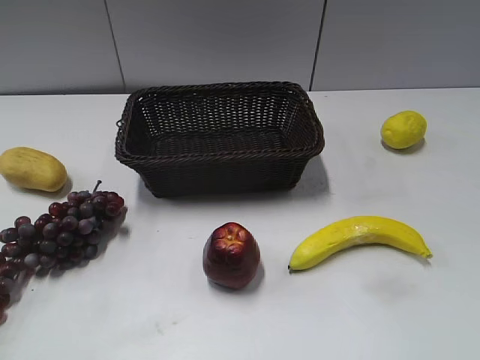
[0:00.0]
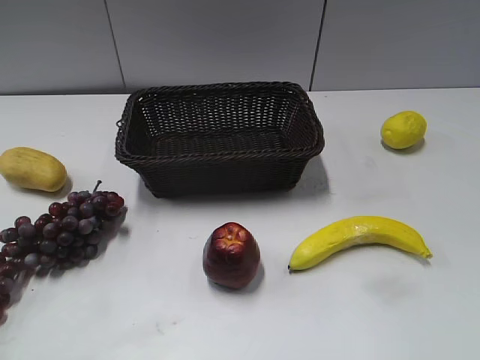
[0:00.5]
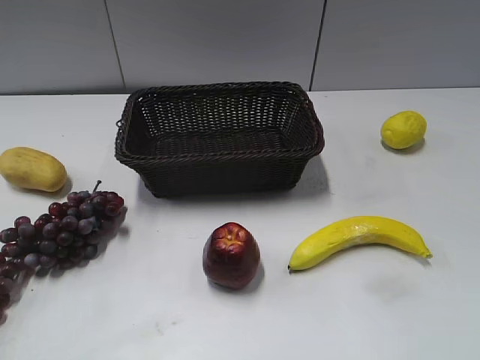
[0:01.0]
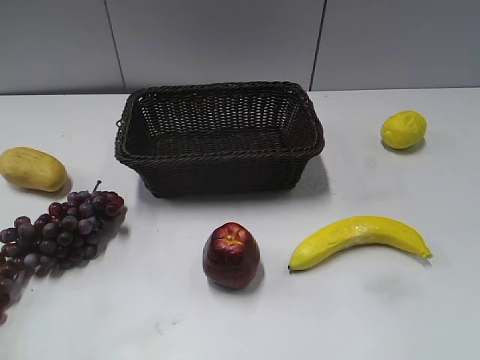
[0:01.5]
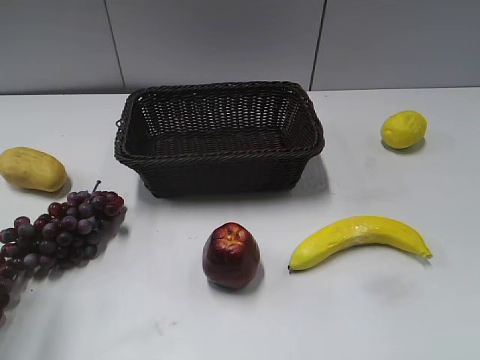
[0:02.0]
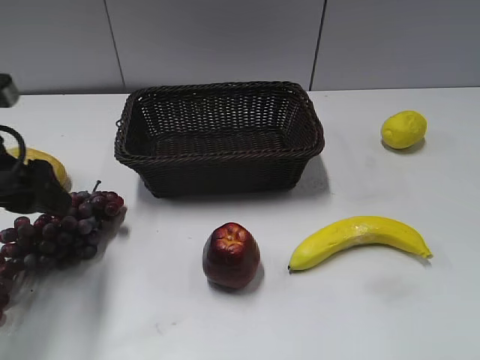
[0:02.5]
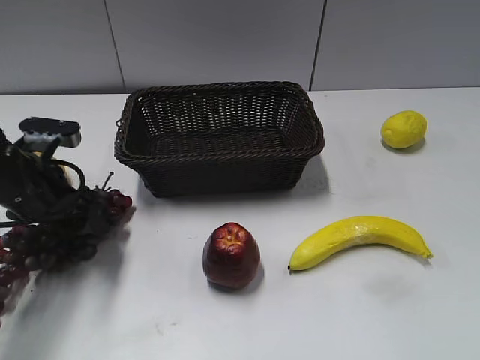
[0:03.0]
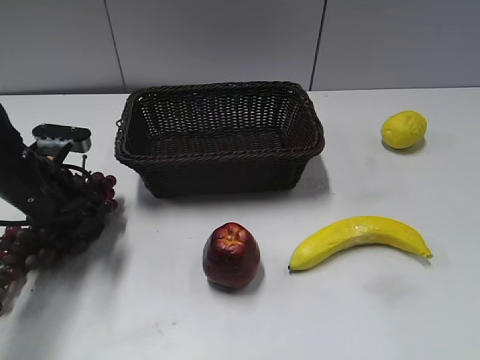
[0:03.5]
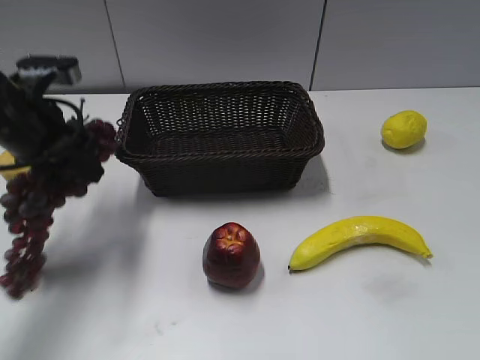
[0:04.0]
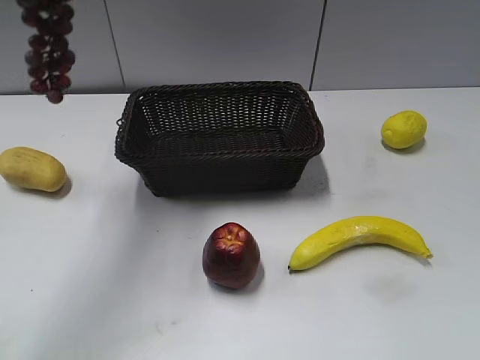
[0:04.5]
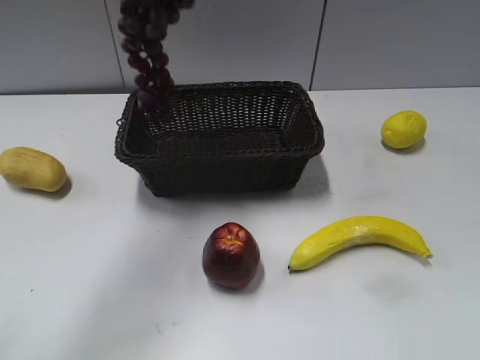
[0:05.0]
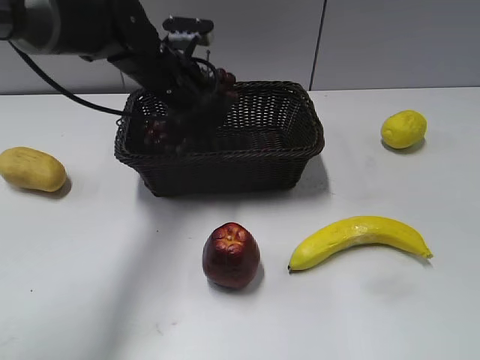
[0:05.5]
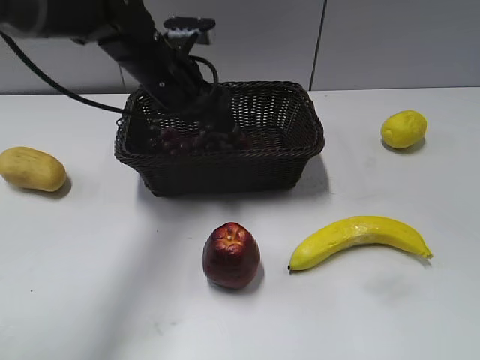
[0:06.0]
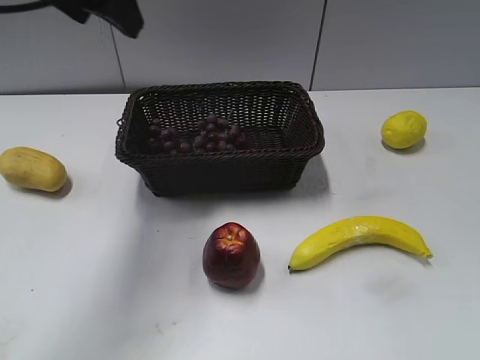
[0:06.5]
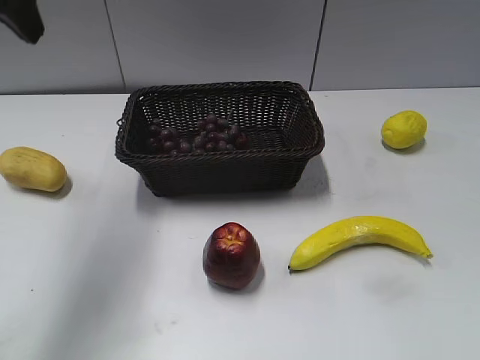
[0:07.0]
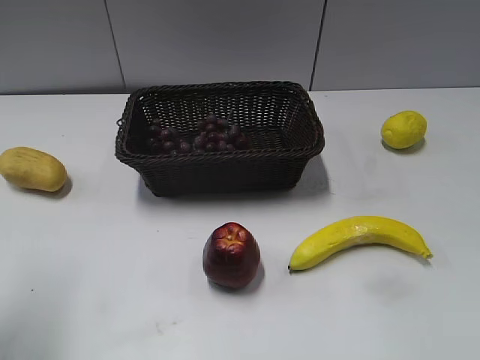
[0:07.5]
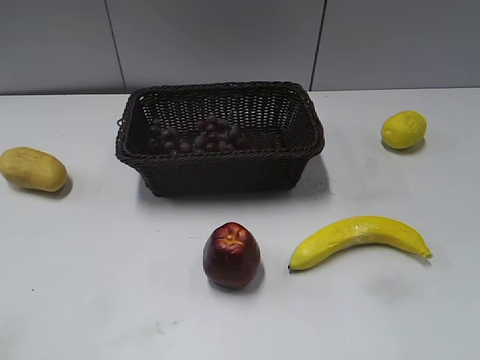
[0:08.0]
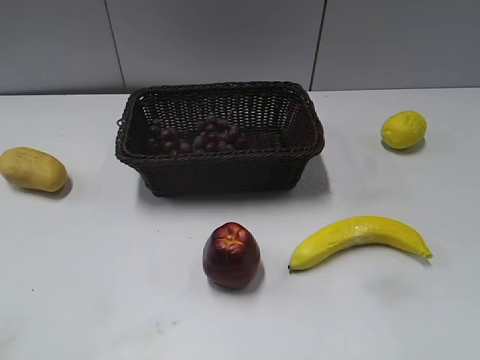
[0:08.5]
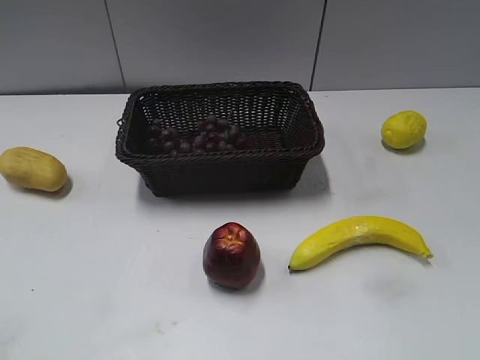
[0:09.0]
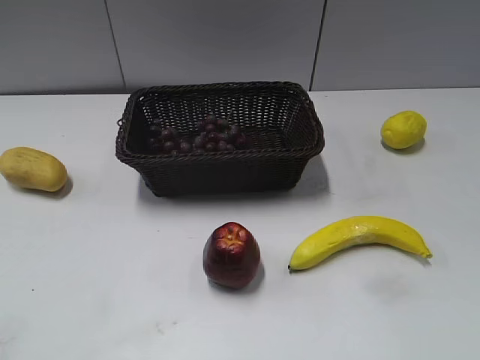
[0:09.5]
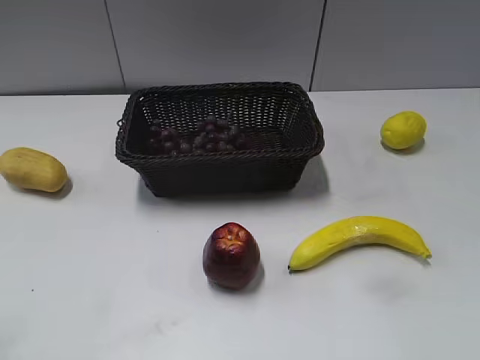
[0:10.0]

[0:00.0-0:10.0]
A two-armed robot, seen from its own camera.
Step, 0:02.5 to 0:03.0: Grasp the grape with left gripper.
Step, 0:04.0 to 0:05.5: Place the grape in the basket with left gripper.
0:02.0 to 0:04.0: The left gripper heads forward and to the right, covering about 15 cm, goes downward and returns, approximately 15 cm each way, and closes.
0:04.0 to 0:06.0: The left gripper moves up and down over about 25 cm, changing direction 2 times, and opens up.
0:06.0 to 0:08.0: The left gripper travels backward and to the left by about 40 cm.

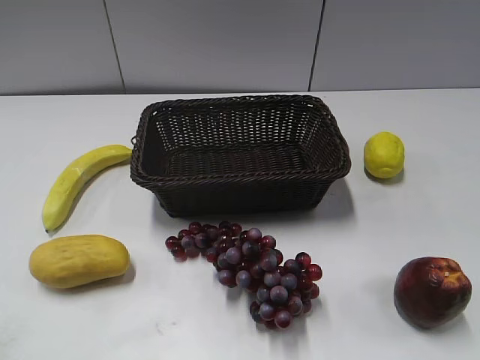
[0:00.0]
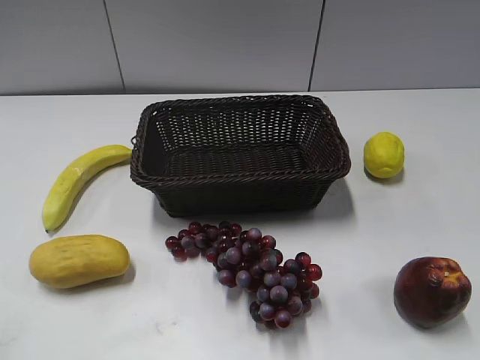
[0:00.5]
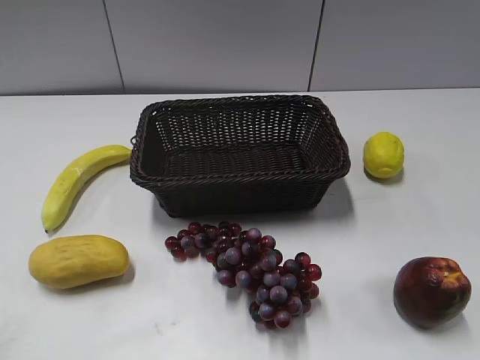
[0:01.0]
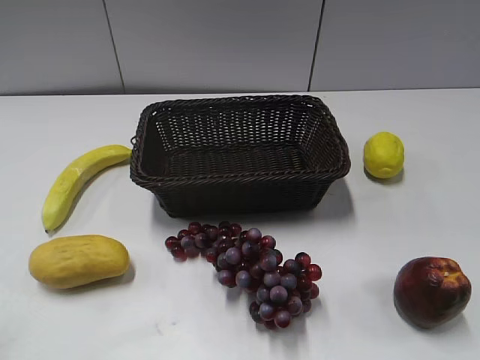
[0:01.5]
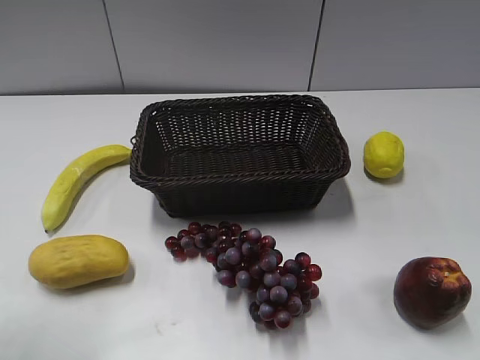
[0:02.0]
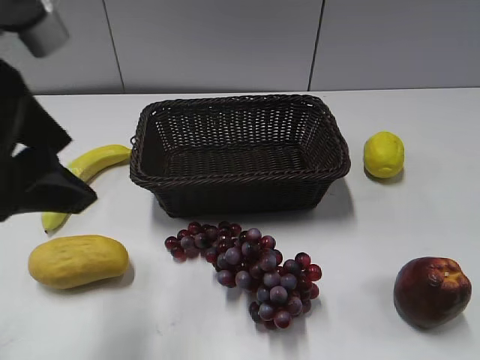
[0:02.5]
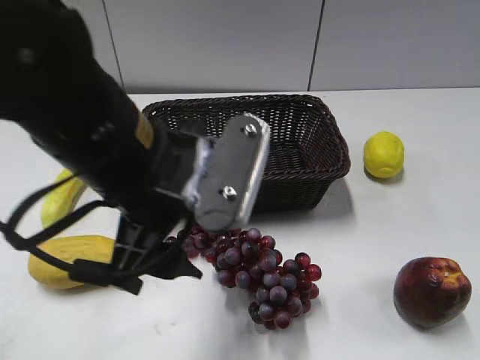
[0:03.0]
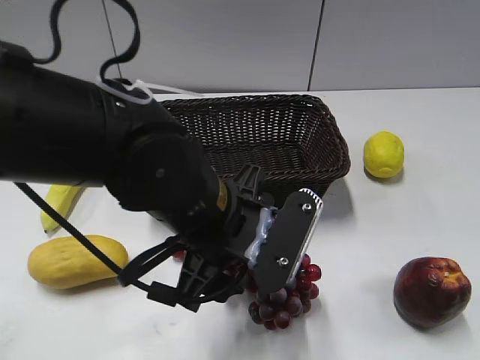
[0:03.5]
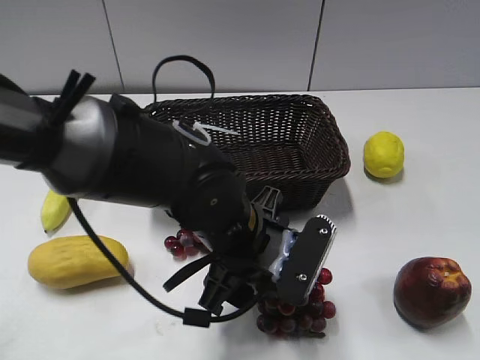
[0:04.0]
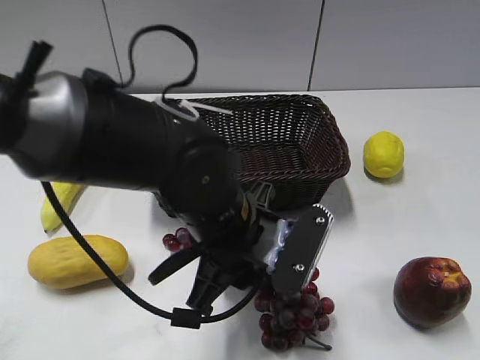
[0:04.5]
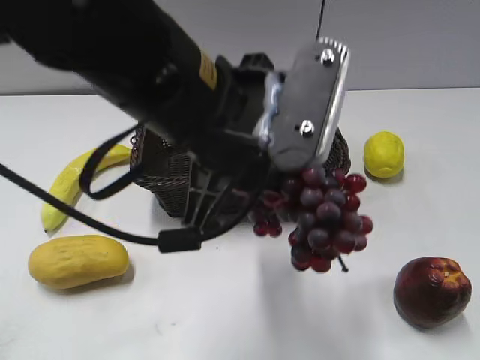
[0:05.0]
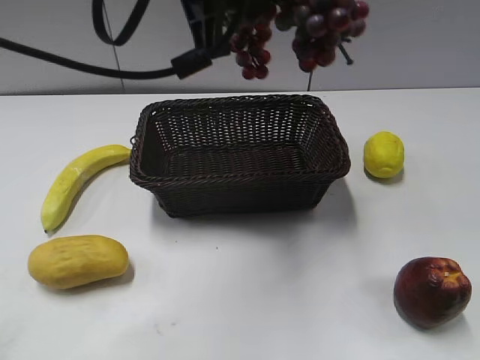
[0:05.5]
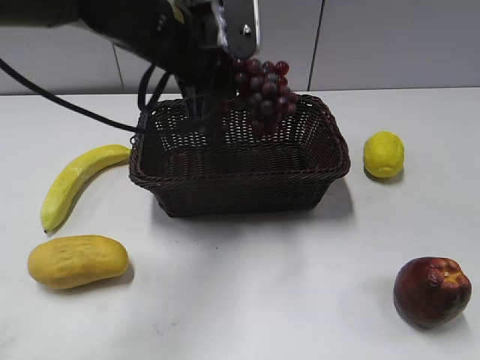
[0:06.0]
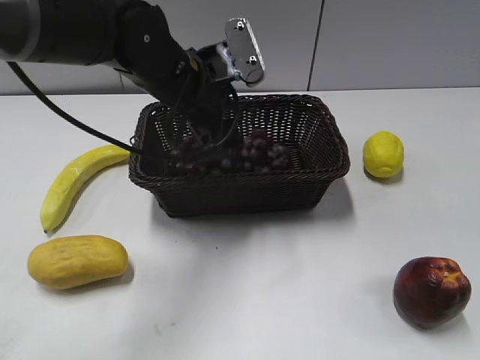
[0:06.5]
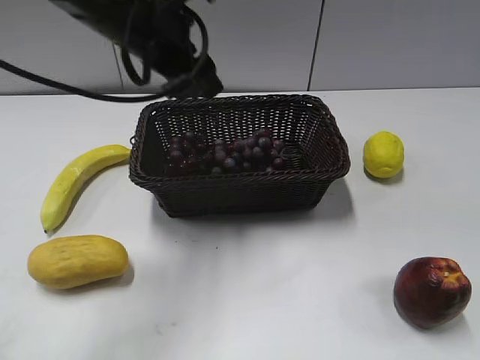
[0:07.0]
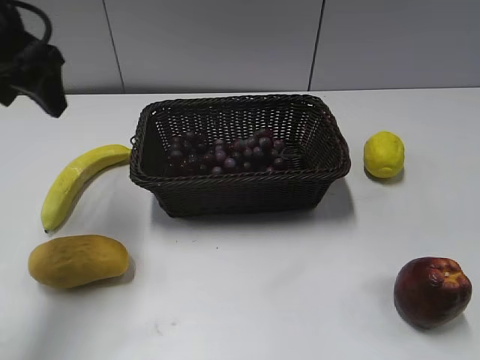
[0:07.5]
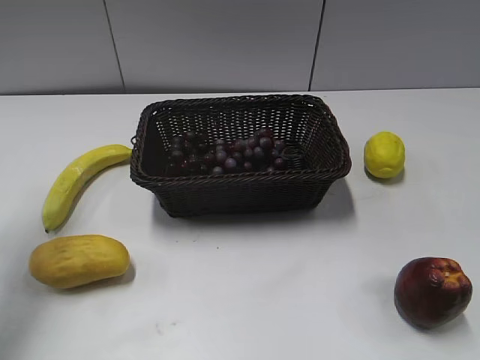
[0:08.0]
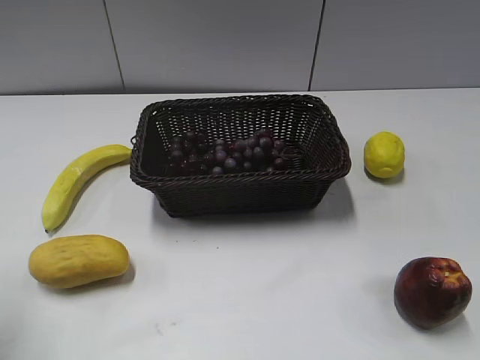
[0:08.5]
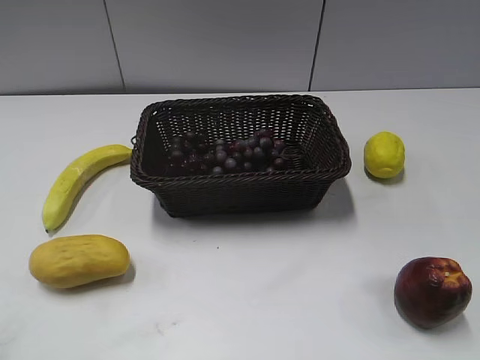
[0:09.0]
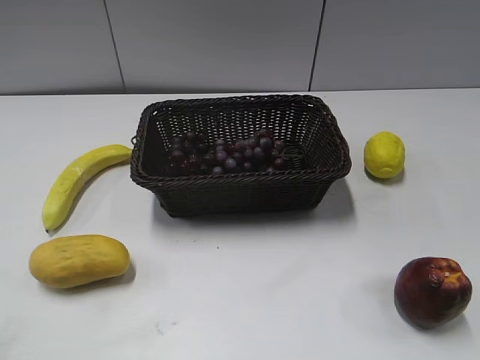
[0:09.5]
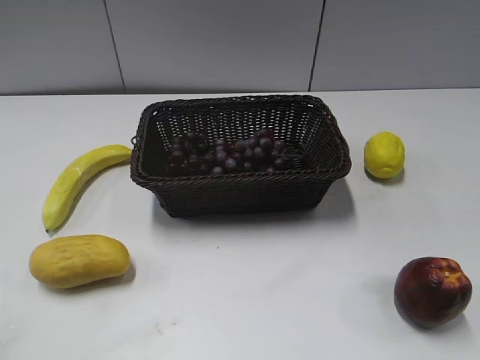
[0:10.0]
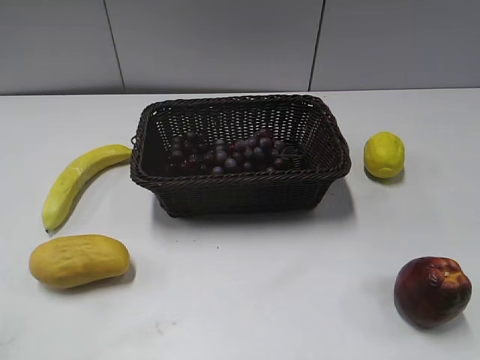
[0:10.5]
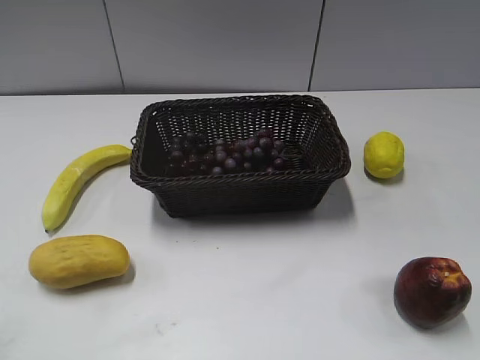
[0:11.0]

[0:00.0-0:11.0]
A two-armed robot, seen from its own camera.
Step, 0:02.5 to 0:04.0: Grasp the grape with left gripper.
Step, 0:04.5 to 0:06.5: Place the grape in the basket with left gripper.
0:02.0 to 0:03.5: The left gripper shifts about 25 cm to the right and downward.
0:03.5 to 0:05.5: The left gripper heads upward and forward, covering about 20 cm, and closes its fingers.
0:05.5 to 0:07.5: The left gripper goes about 20 cm to the left, and opens its fingers.
0:07.5 to 0:09.0: The left gripper goes some 25 cm backward.

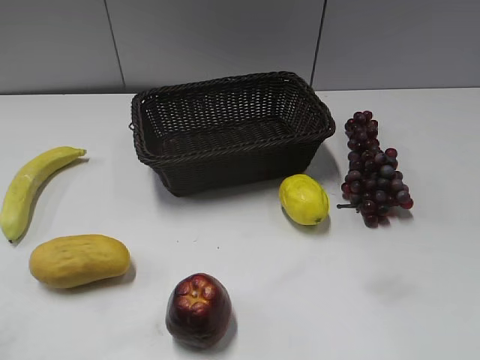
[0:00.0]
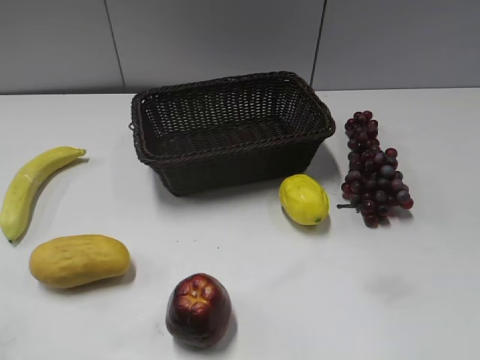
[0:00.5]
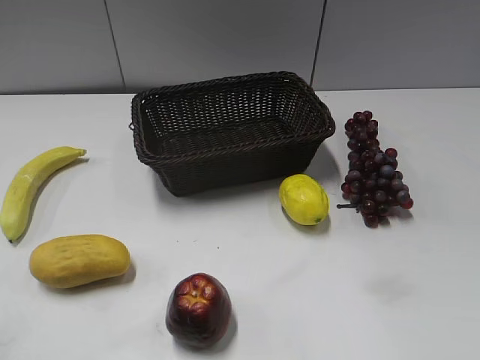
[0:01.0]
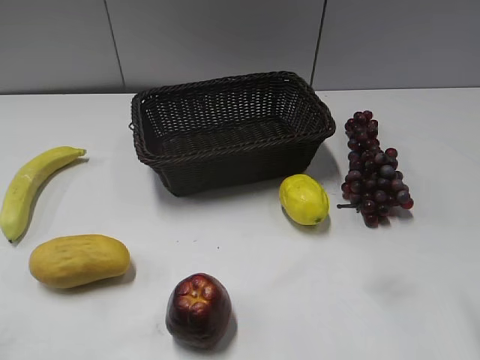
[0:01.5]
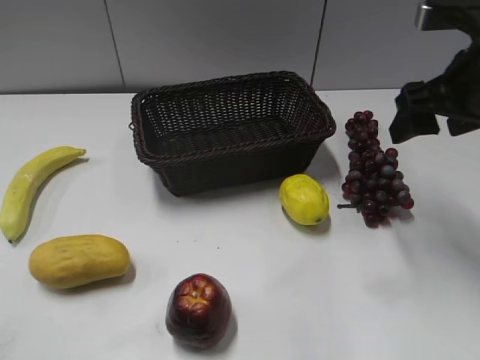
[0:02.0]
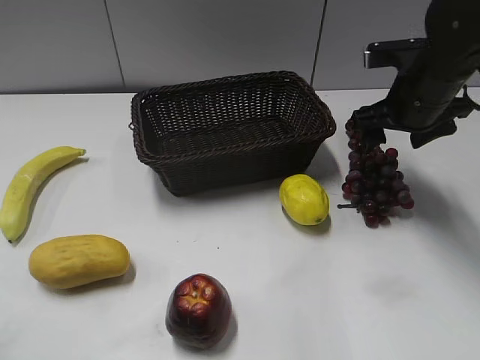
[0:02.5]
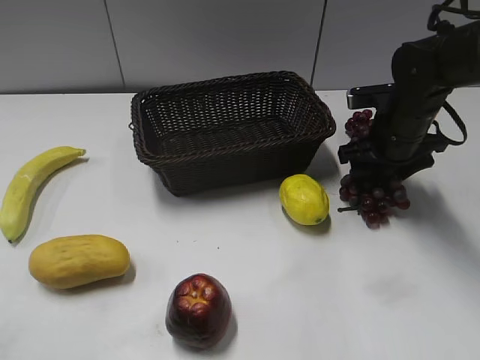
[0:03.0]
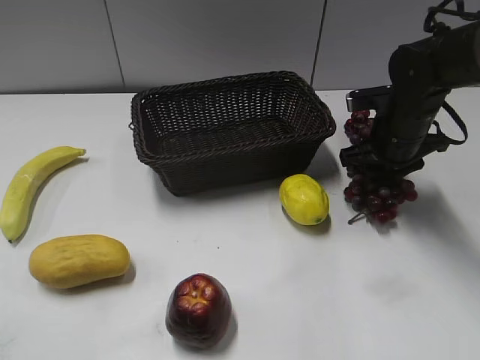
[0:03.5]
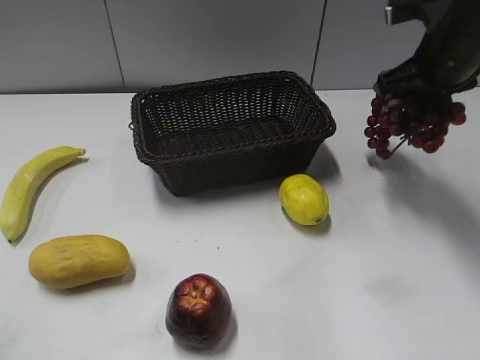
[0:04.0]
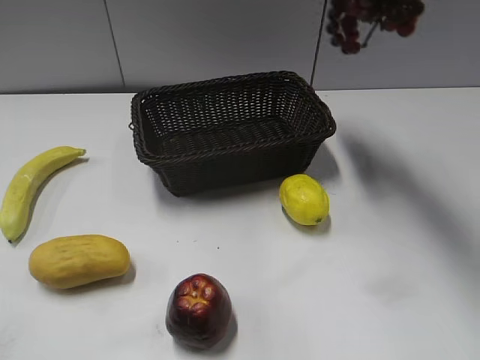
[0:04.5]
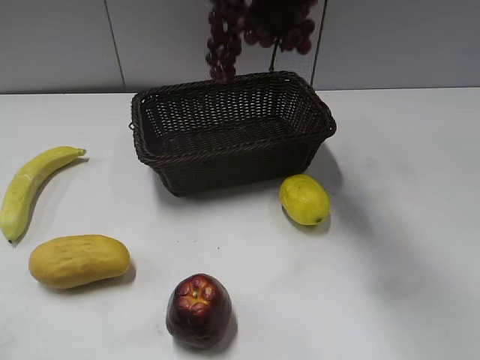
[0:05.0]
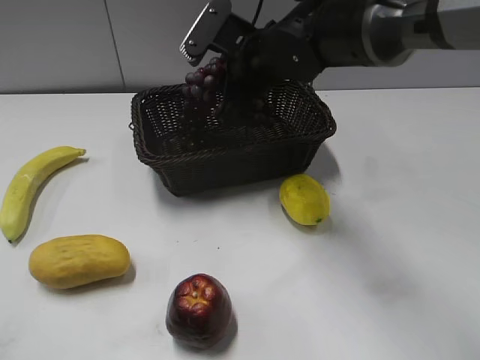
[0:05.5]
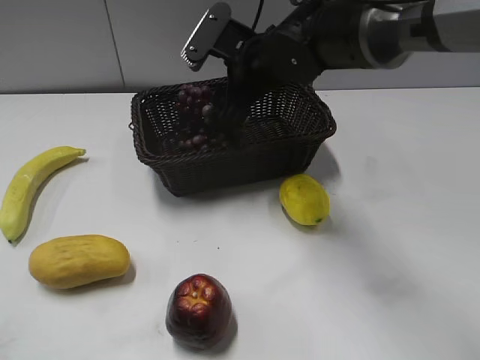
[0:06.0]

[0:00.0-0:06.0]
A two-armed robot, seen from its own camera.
Step, 0:02.0 to 0:03.0: Grasp the grape with right gripper.
Step, 0:03.5 to 0:05.5: Place the grape in the basket with right gripper.
0:02.0 to 0:04.0: The right gripper moves forward, approximately 10 cm, travels downward and back again, approximately 15 cm each way, and closes.
0:04.0 to 0:06.0: The right gripper travels to the left by roughly 20 cm, and opens up.
